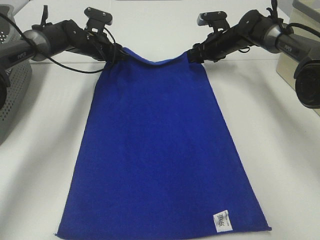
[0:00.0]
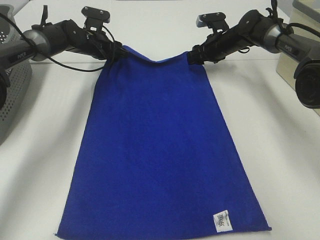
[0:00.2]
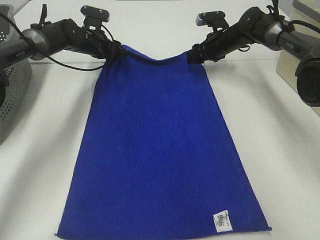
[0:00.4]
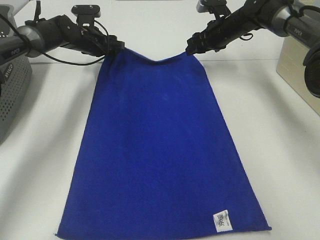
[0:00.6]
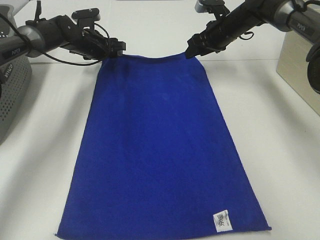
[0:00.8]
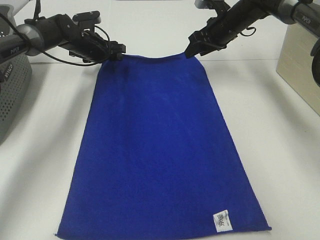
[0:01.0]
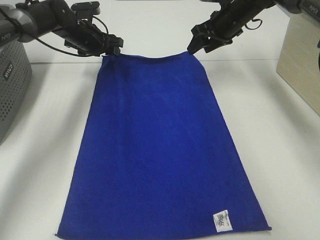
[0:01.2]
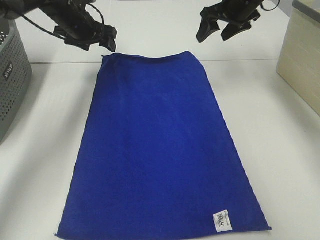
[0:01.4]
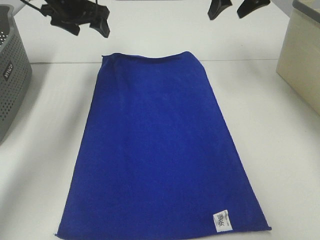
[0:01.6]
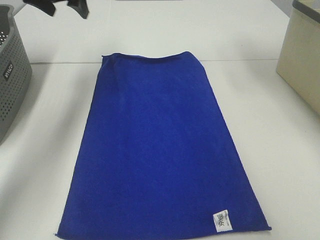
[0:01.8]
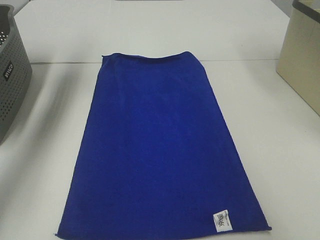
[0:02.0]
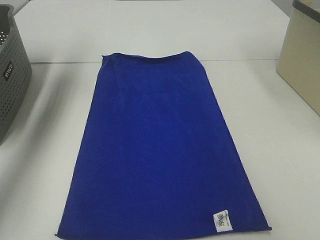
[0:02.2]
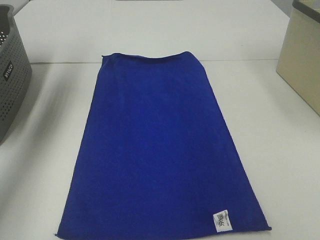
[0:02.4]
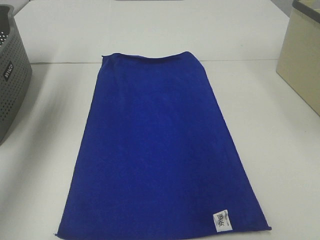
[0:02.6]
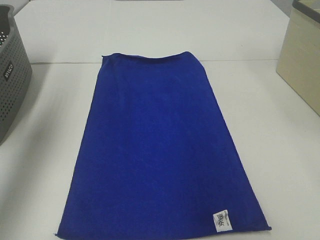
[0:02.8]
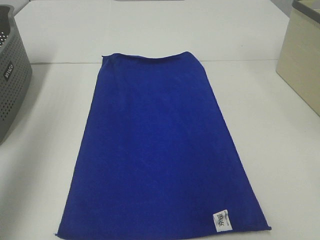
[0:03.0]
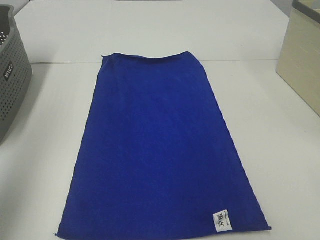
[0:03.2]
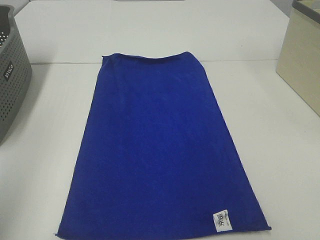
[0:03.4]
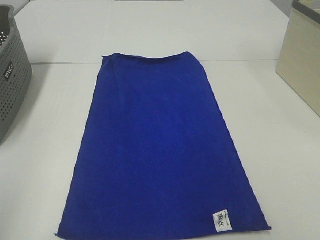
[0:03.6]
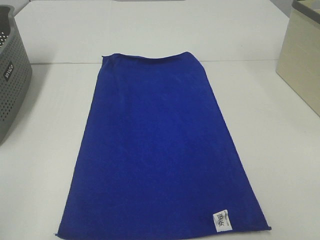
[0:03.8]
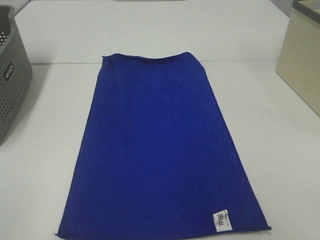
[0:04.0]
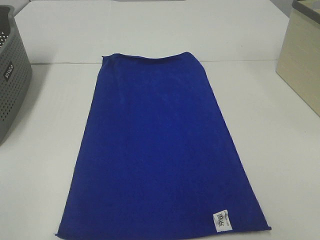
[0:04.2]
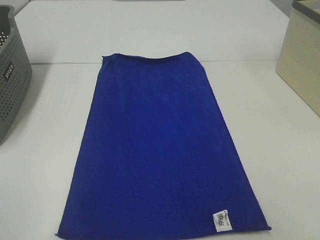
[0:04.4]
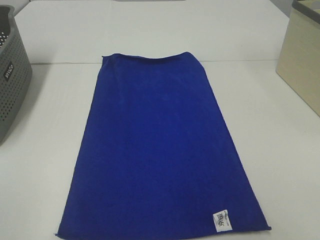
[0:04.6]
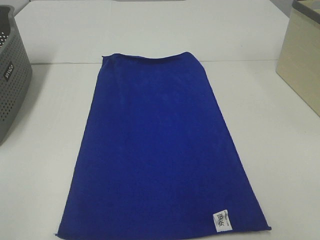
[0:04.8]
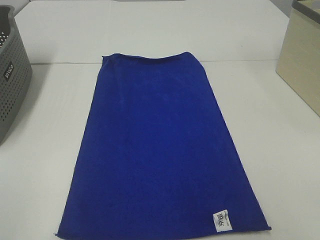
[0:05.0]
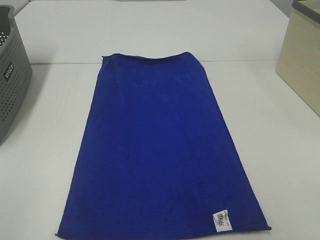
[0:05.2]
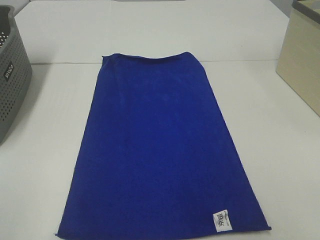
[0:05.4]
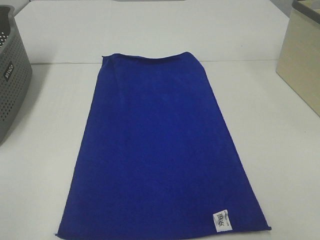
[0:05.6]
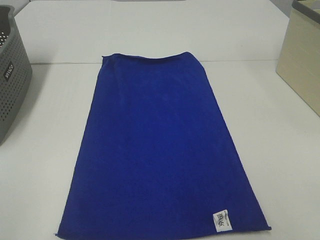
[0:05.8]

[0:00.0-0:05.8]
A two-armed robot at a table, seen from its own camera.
Task of the whole recording: Remove the towel and place it.
0:00.0 to 0:01.4: The right gripper travels upward and backward by some 15 cm, while the left gripper shifts approximately 10 cm upward.
0:01.4 to 0:02.8: The right gripper goes about 35 cm backward and upward. The left gripper heads backward, upward and to the left, covering about 35 cm.
0:02.8 to 0:04.4: The left gripper is displaced backward by approximately 30 cm.
